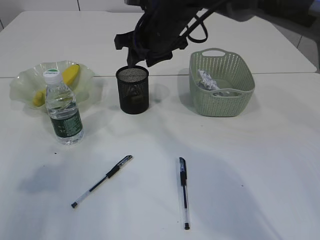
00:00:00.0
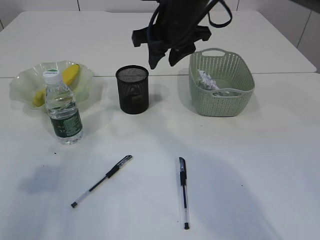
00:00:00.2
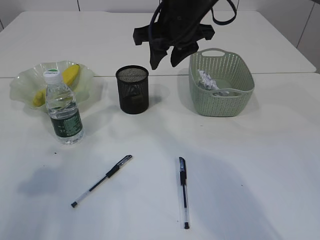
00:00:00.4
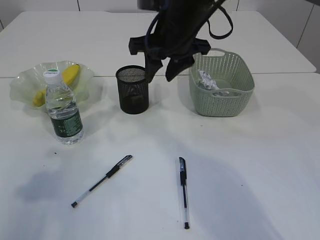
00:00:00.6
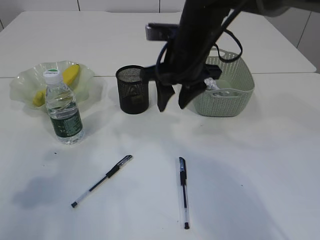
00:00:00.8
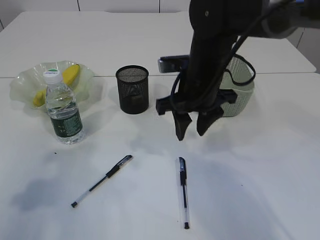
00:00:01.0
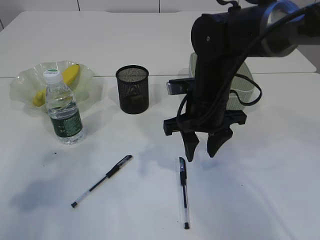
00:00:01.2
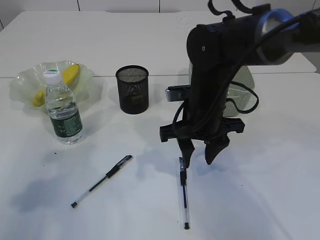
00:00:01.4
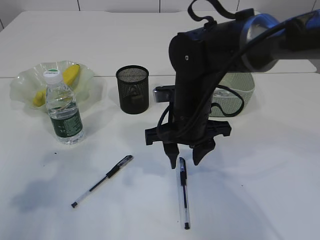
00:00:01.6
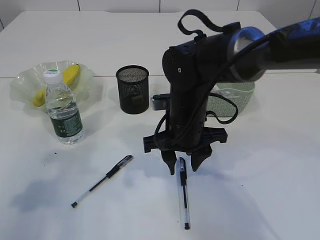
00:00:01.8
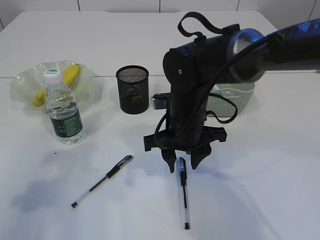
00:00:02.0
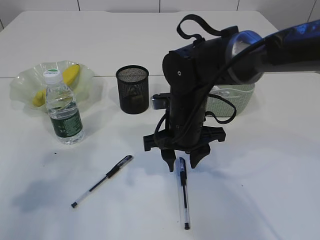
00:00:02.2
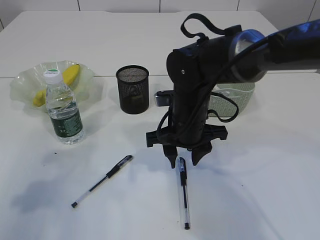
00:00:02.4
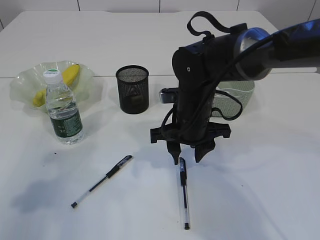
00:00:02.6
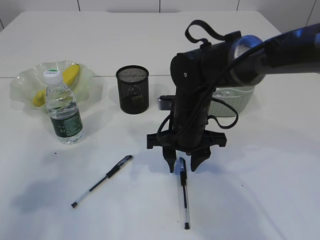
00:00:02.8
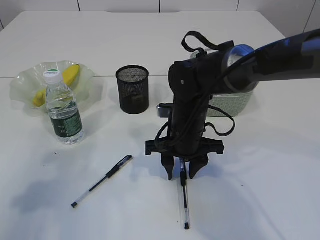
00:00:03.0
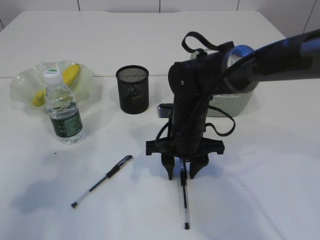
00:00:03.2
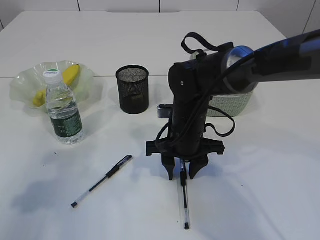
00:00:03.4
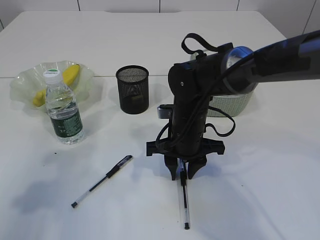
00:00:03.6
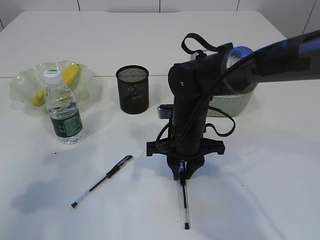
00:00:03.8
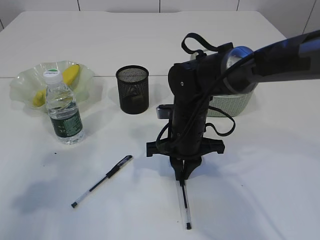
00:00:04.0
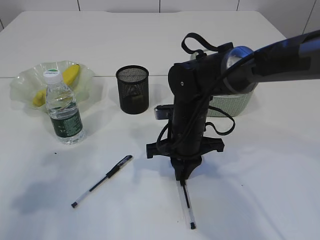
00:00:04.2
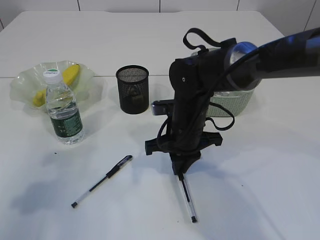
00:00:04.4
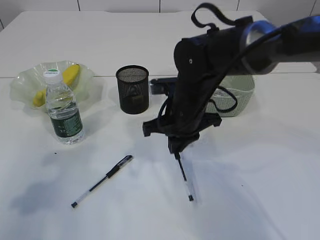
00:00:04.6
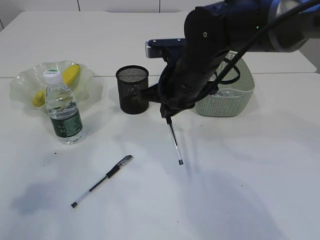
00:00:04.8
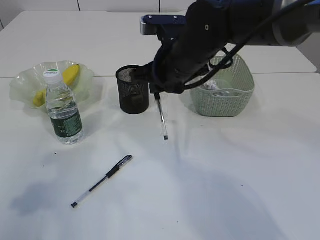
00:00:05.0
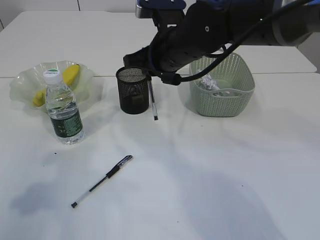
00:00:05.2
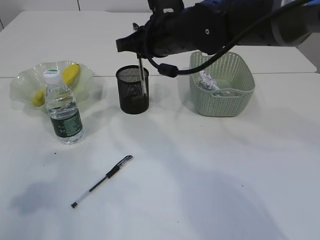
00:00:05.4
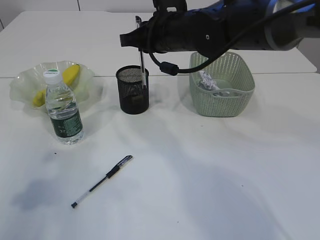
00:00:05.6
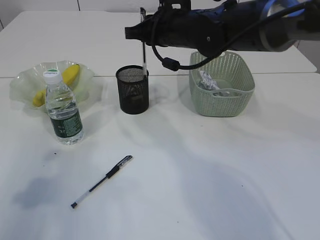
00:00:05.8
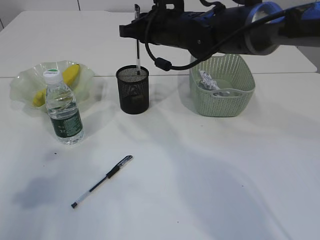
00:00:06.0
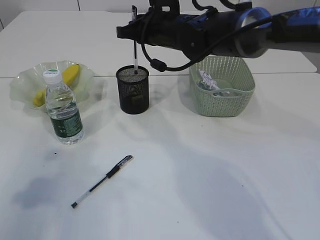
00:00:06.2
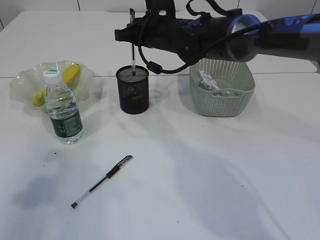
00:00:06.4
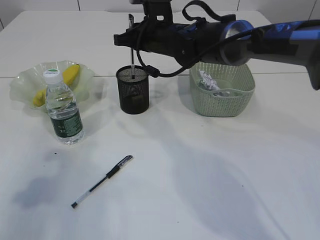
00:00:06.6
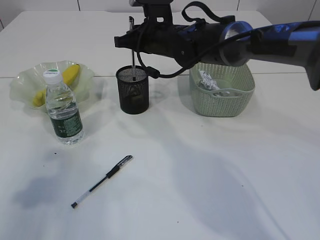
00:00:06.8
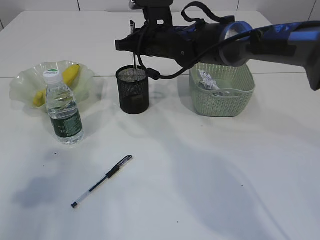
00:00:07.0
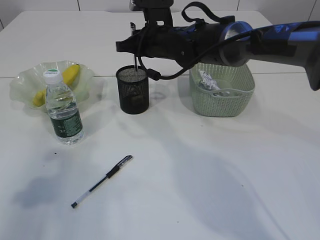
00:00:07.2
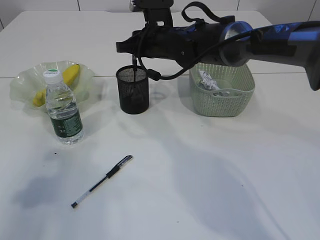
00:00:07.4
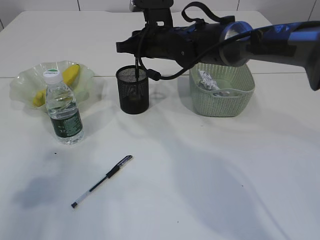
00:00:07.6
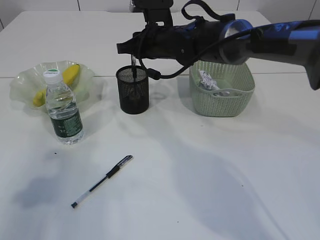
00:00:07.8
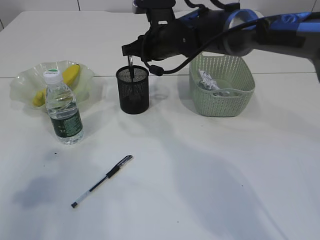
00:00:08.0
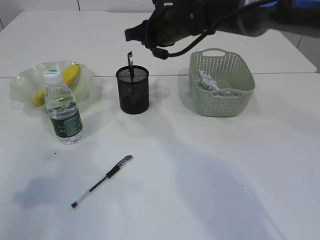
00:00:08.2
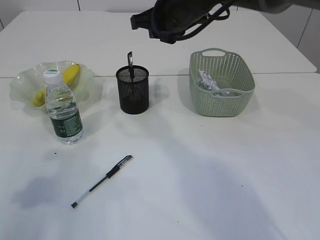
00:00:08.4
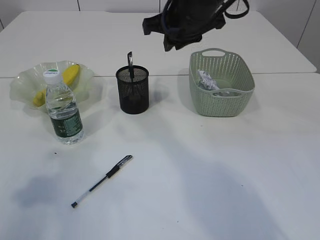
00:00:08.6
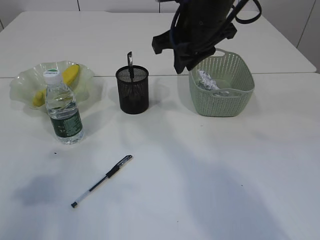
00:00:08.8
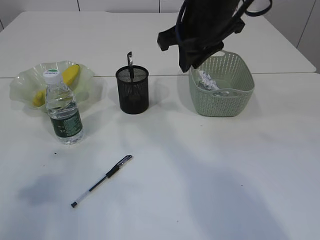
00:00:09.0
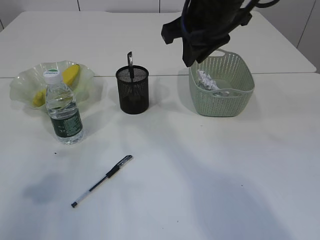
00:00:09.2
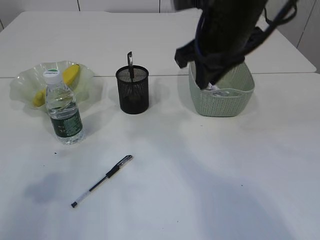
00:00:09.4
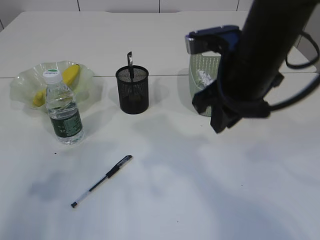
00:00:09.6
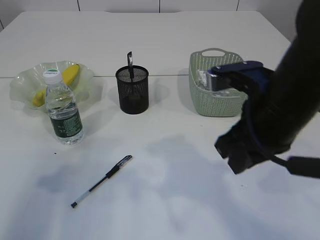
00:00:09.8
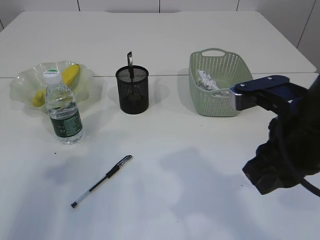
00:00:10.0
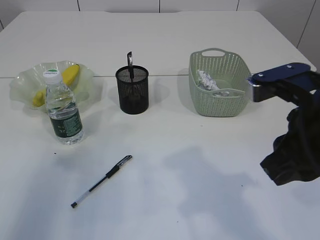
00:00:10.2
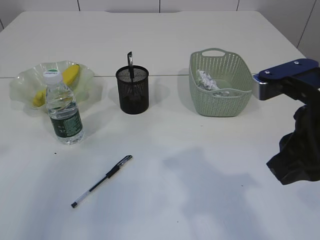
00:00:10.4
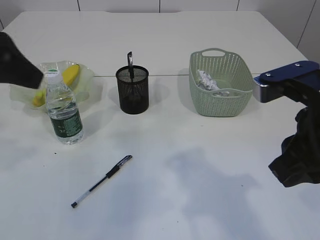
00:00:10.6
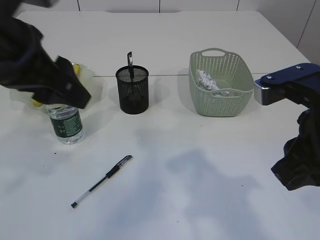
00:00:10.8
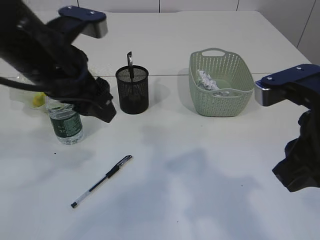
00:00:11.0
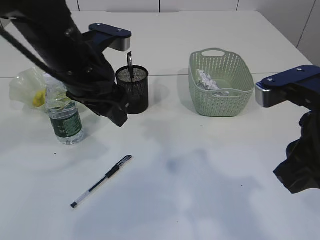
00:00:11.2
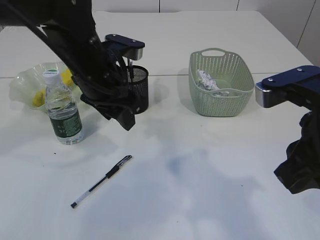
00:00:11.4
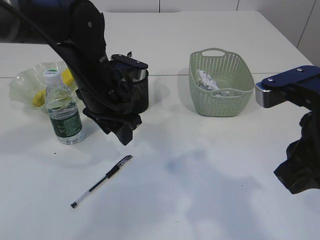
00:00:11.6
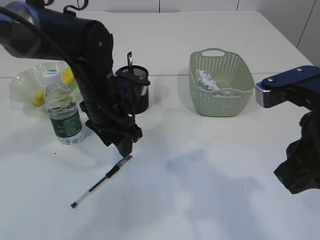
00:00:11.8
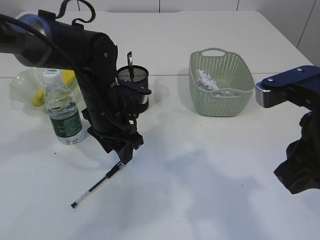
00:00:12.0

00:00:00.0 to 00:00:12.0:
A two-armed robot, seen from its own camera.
Step, 00:00:00.2 to 00:00:04.6: Pick up the pen with right arm.
Step, 00:00:04.8 to 00:00:08.0: Place the pen into the pen holder.
00:00:00.0 to 00:00:01.6: The right gripper travels backward and downward by approximately 15 cm.
00:00:01.6 to 00:00:03.0: The right gripper moves downward, some 5 cm.
00:00:03.0 to 00:00:04.4: The right gripper closes up.
00:00:04.4 to 00:00:06.0: The right gripper shifts some 15 cm upward and forward.
00:00:06.0 to 00:00:07.6: The grippers move only a little.
00:00:07.6 to 00:00:09.0: The right gripper is displaced backward, upward and to the right by about 15 cm.
00:00:09.0 to 00:00:10.4: The left gripper is displaced upward by some 5 cm. Meanwhile the right gripper shifts some 20 cm backward and to the right.
00:00:10.4 to 00:00:12.0: The left gripper shifts approximately 30 cm downward, to the right and forward.

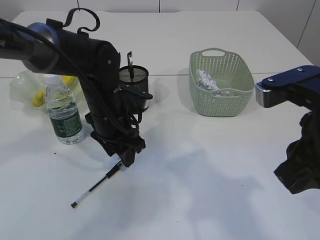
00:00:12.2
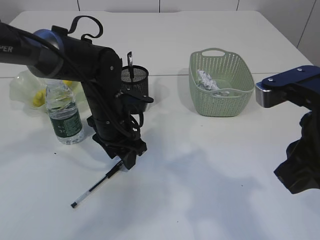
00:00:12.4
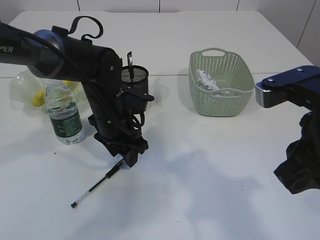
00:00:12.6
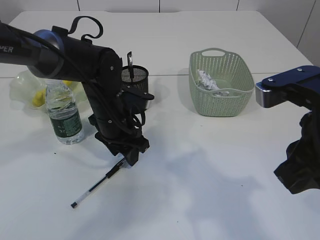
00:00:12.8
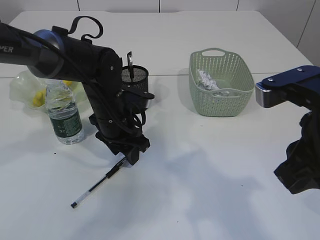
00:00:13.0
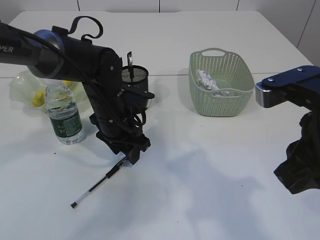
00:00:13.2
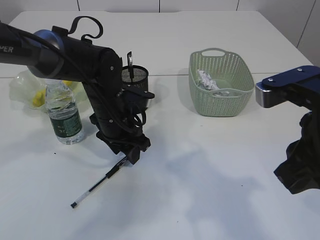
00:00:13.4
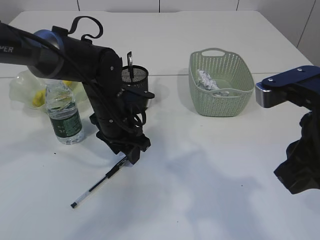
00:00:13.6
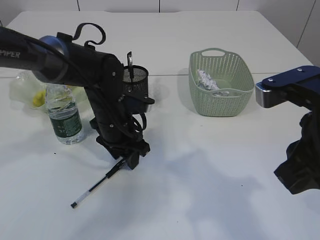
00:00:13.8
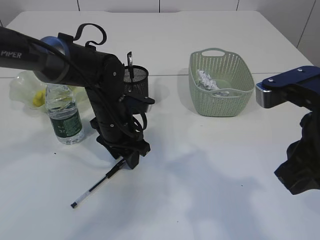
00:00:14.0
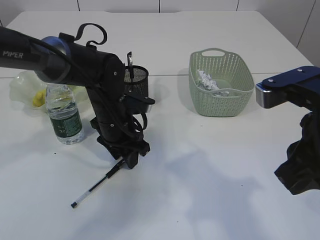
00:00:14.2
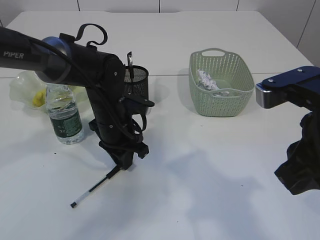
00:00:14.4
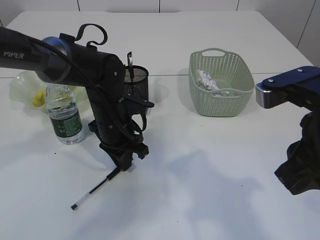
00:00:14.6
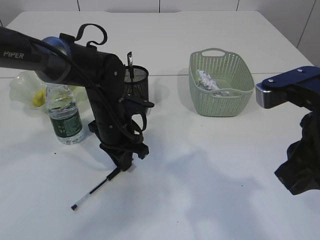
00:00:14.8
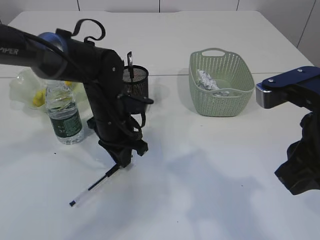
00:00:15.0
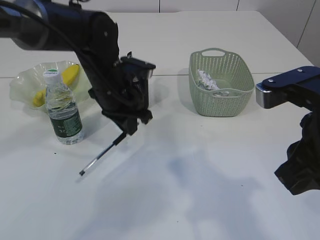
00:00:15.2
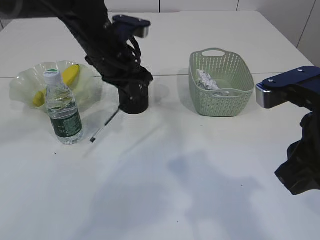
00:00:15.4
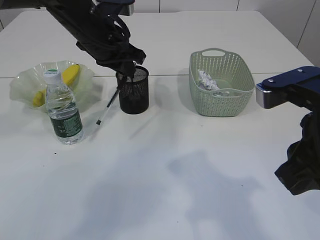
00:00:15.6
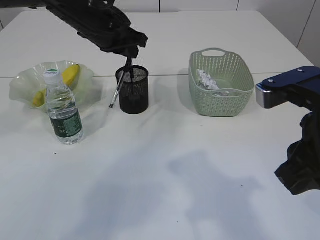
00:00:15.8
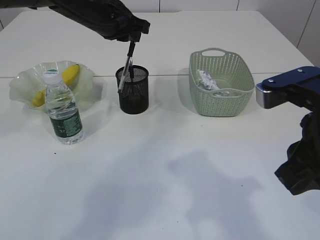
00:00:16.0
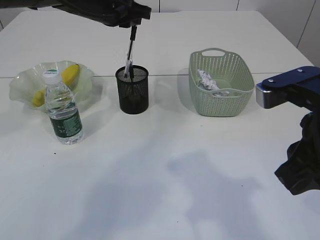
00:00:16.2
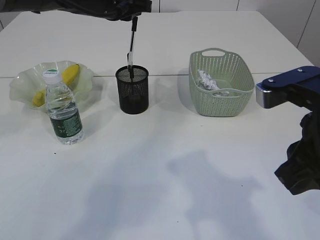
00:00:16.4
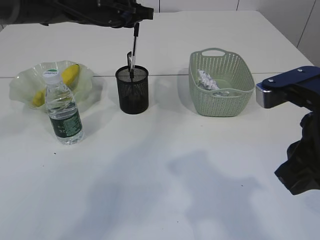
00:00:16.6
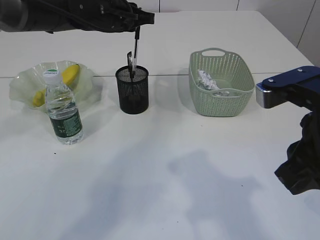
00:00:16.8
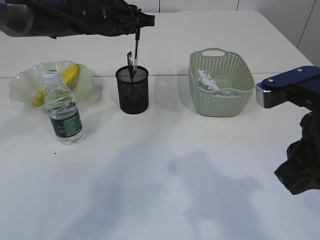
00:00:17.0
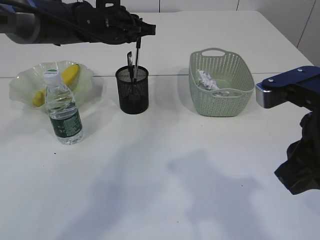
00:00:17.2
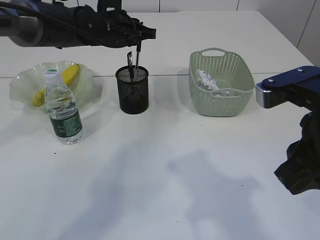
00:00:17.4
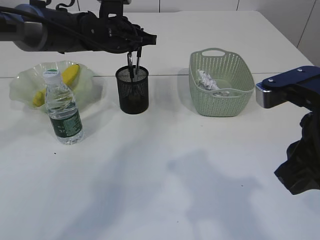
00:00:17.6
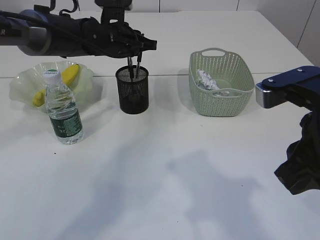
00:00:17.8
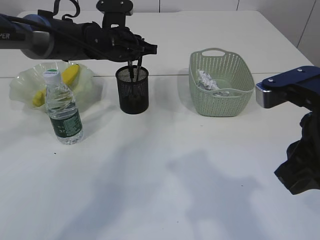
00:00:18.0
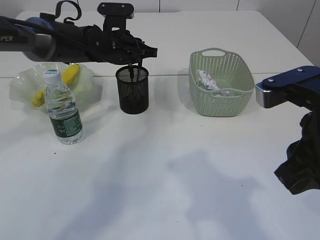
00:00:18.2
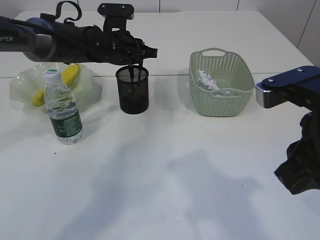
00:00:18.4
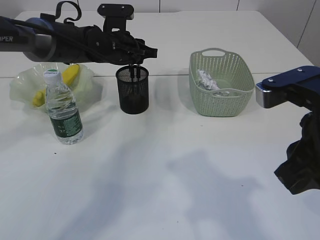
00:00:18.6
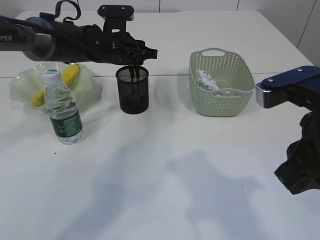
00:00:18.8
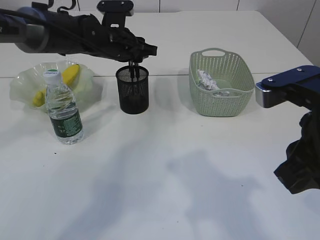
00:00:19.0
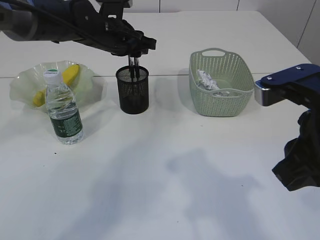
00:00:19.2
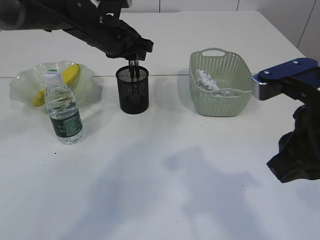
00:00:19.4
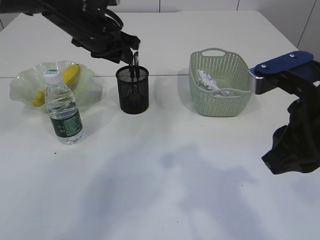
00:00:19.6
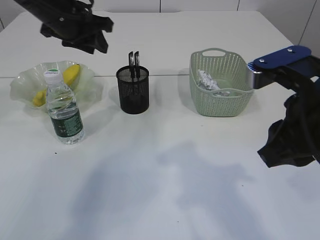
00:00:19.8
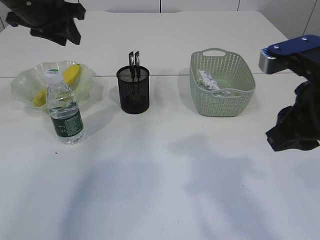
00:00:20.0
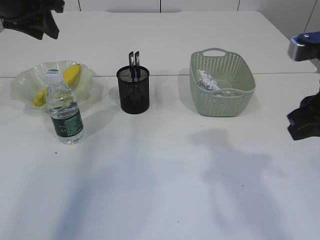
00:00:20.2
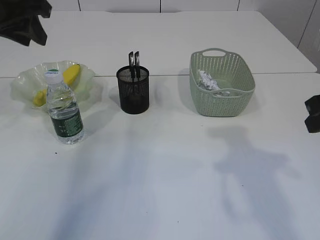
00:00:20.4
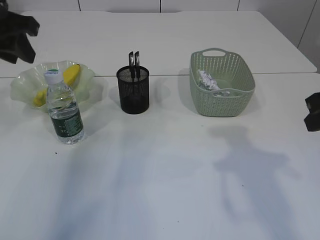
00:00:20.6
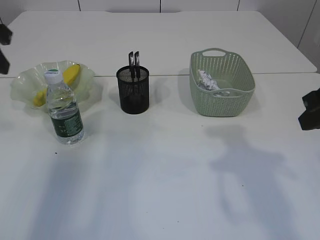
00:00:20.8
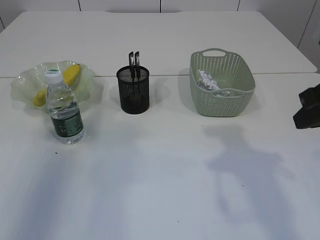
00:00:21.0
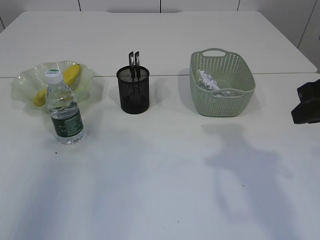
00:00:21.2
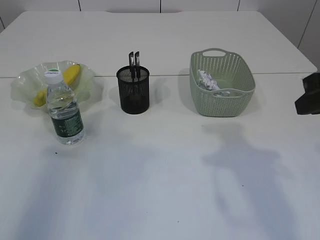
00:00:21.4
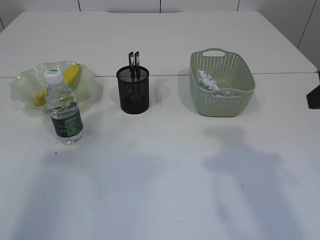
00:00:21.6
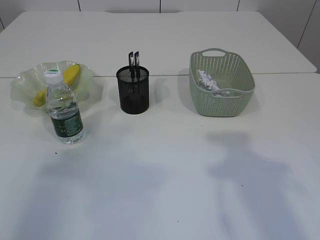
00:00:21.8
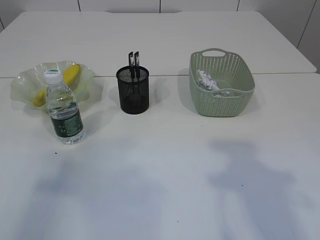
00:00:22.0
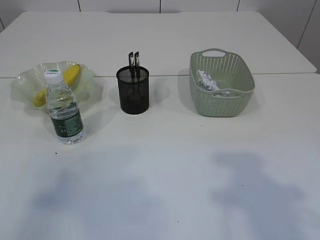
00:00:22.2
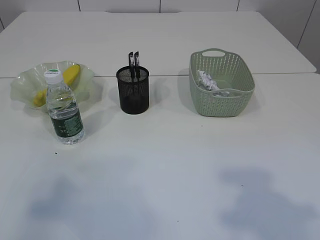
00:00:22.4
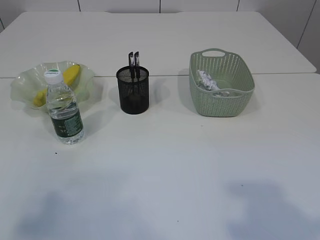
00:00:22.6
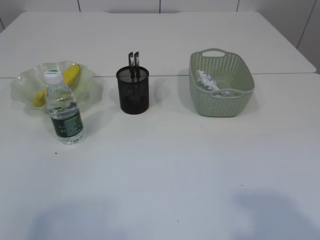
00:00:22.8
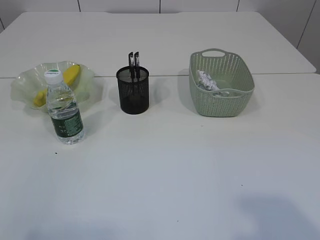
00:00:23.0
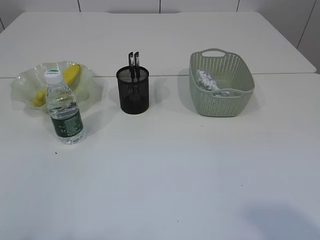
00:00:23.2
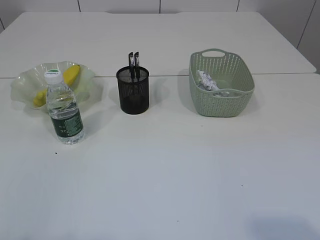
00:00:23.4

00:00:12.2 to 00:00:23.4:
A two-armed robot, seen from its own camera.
Step, 00:00:12.2 to 00:00:15.2: Pick up the pen with left arm.
Step, 00:00:15.4 to 00:00:19.6: Place the pen into the pen holder.
00:00:12.2 to 00:00:13.8: The grippers make only small movements.
00:00:13.8 to 00:00:15.4: The left gripper is displaced upward by roughly 10 cm, and closes.
00:00:15.4 to 00:00:17.0: The left gripper travels forward by about 10 cm.
00:00:17.0 to 00:00:18.6: The left gripper goes roughly 5 cm downward.
00:00:18.6 to 00:00:20.2: The right gripper changes place by roughly 5 cm, while the left gripper goes some 20 cm upward, to the left and backward.
00:00:20.2 to 00:00:21.8: The left gripper is displaced backward by approximately 25 cm; the right gripper moves about 5 cm.
00:00:21.8 to 00:00:23.4: The left gripper shifts approximately 20 cm backward, and opens up.
